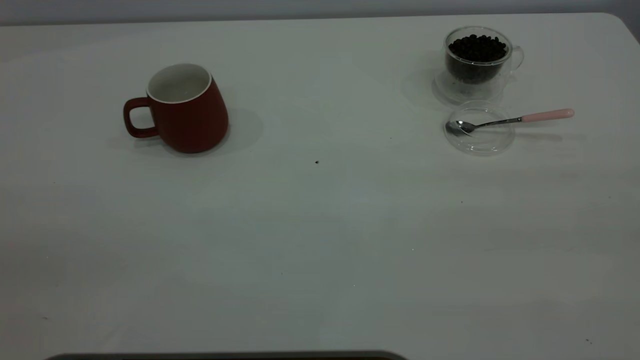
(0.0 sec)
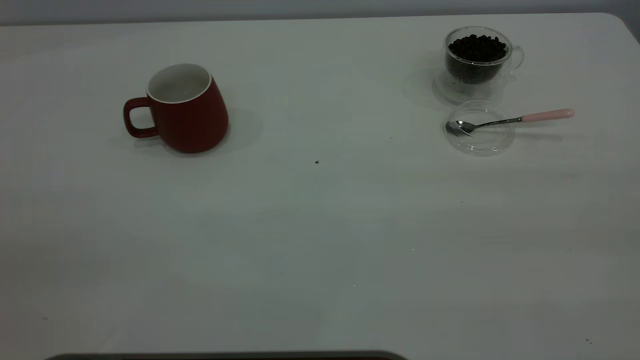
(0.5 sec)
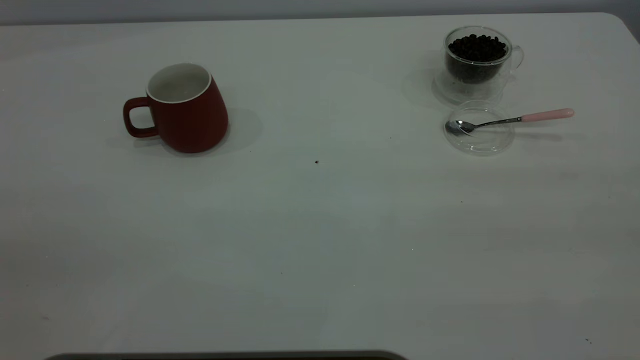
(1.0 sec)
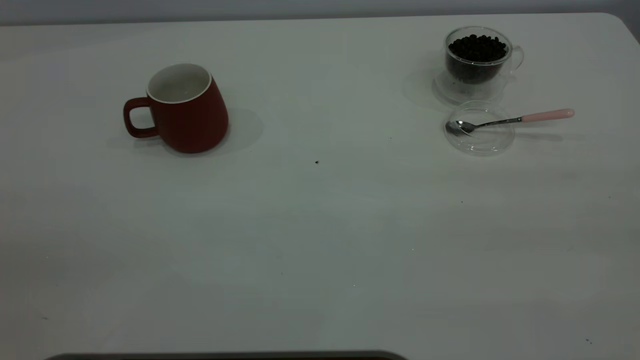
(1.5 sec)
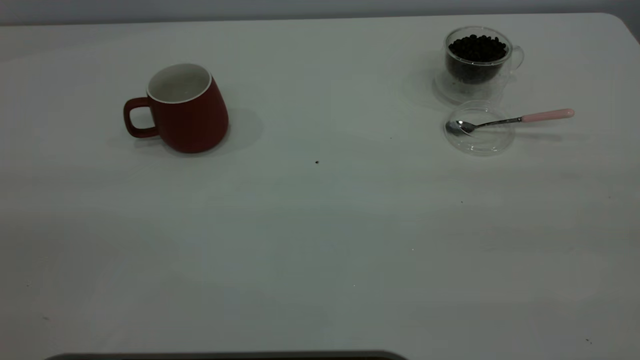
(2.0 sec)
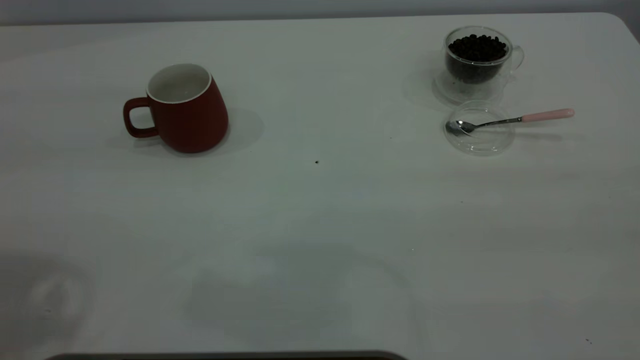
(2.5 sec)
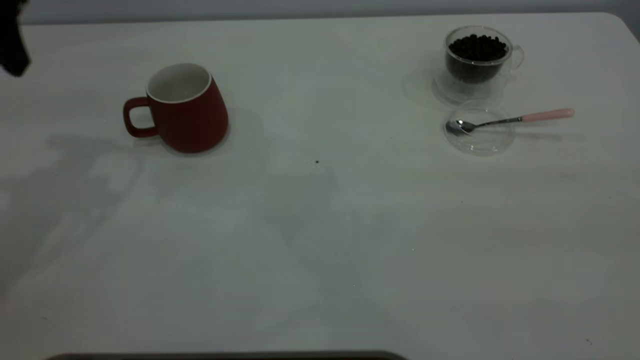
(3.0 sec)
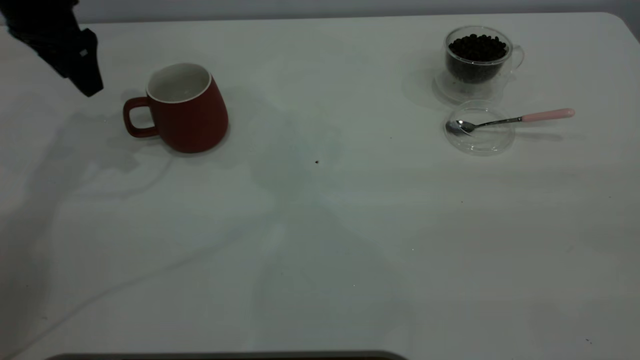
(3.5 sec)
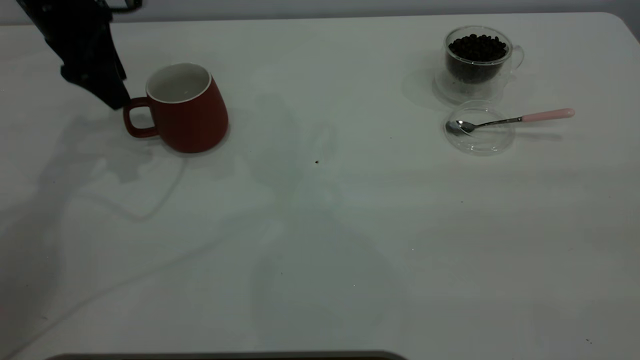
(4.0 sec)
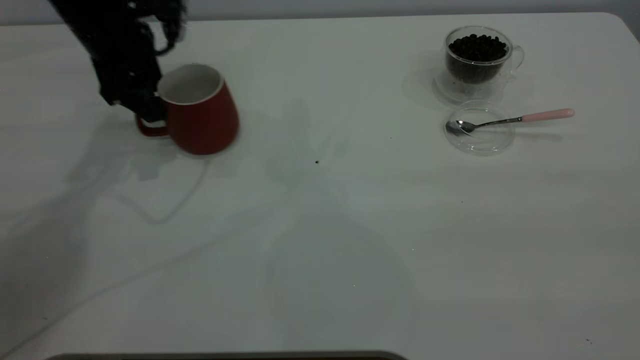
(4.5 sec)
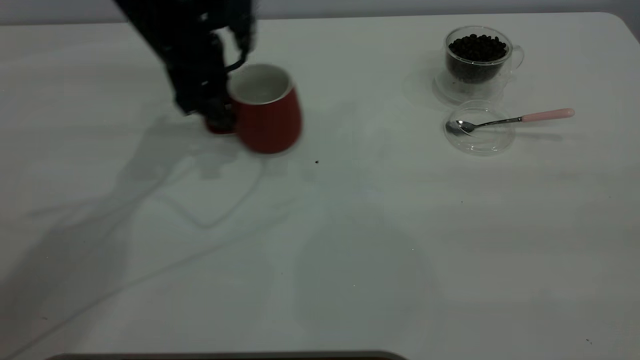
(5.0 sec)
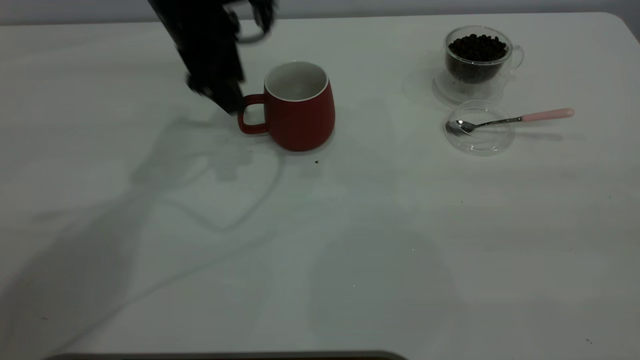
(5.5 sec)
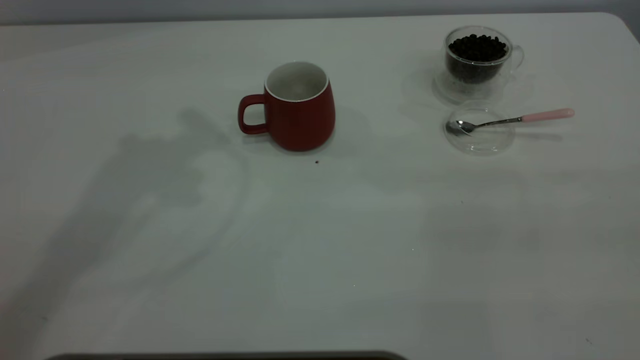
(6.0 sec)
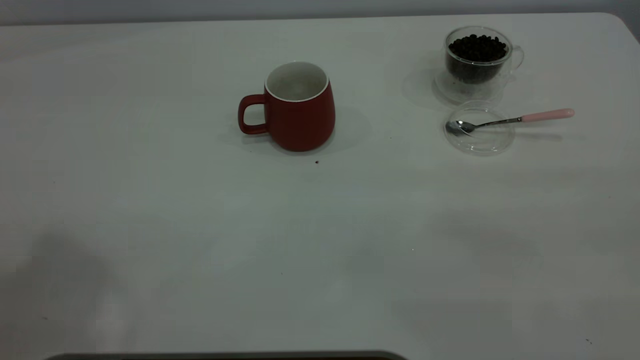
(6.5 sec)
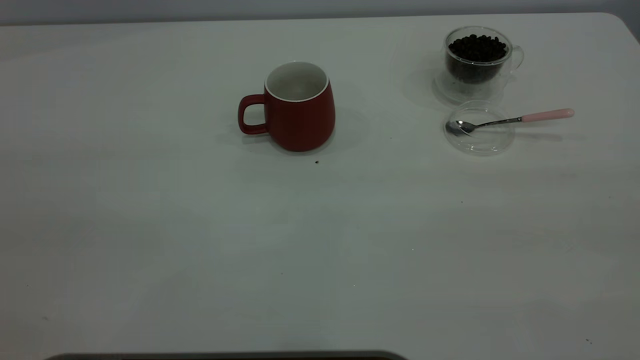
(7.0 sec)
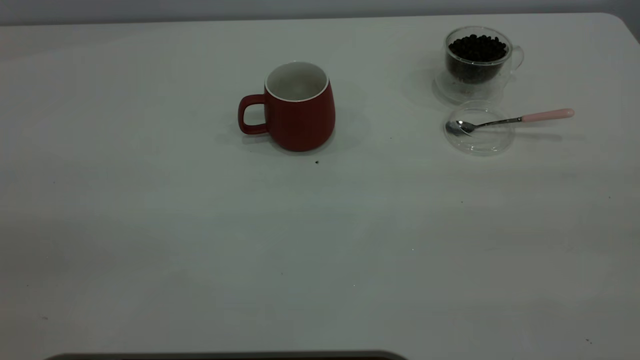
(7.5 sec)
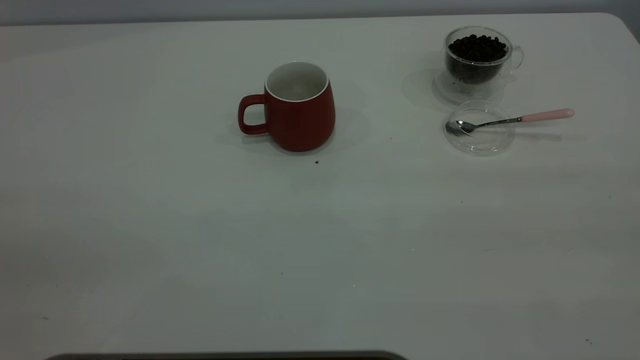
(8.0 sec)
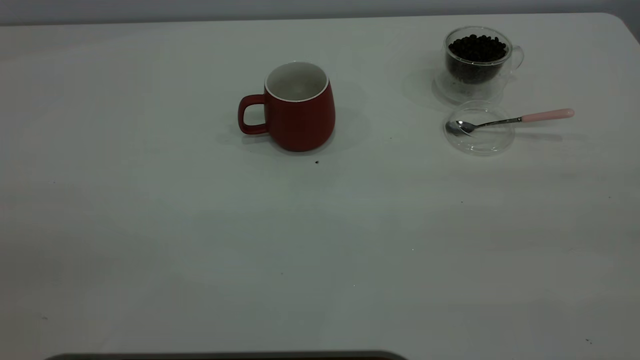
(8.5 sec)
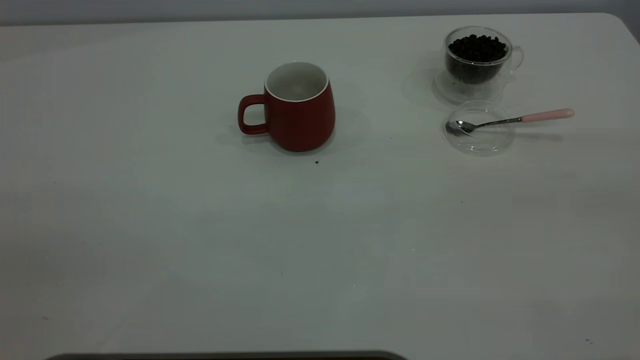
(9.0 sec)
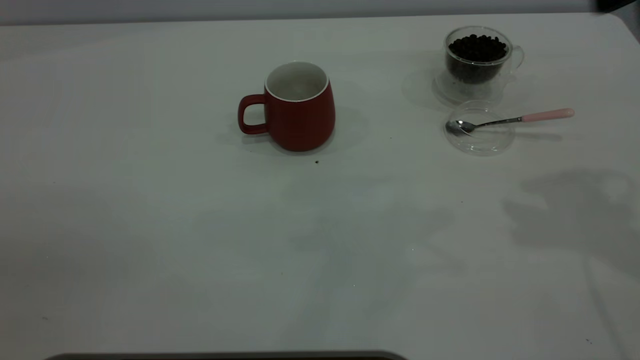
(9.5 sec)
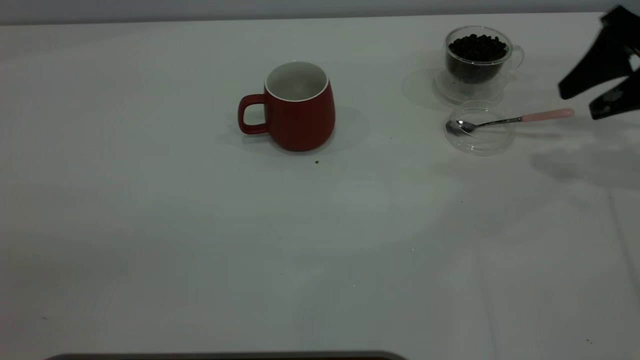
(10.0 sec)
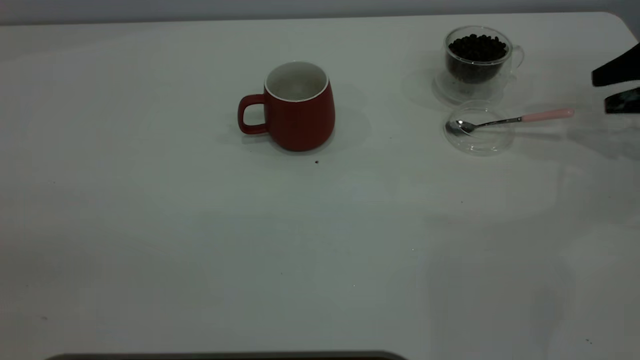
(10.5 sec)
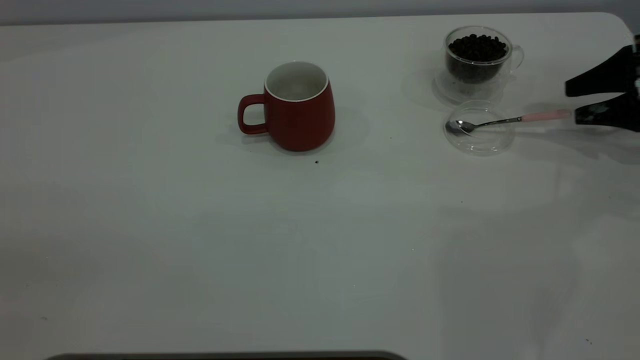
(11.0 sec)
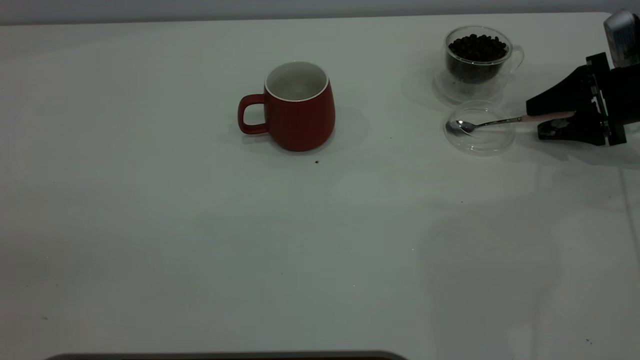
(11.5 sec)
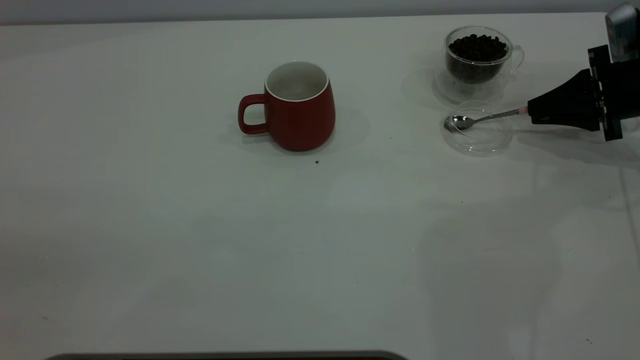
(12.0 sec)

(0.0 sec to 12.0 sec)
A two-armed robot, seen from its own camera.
Task of the whole recording: the left gripper place the red cup in the center of the table, the right gripper take the pink spoon from the cup lid and scoop out the coffee beans from the coffee cup and put them into the red cup, the right gripper put the spoon back into the cup lid.
Step, 0.0 sec - 5.5 sec: Move the cup to the center of view.
2.0 sec - 4.0 sec: The left gripper is displaced forward and downward by approximately 50 cm.
4.0 sec - 6.0 sec: The left gripper shifts some 25 cm upward.
8.0 sec - 10.0 sec: The right gripper is displaced forward and downward by roughly 40 cm.
10.0 sec - 12.0 sec: The right gripper is displaced downward by roughly 10 cm, and closes up.

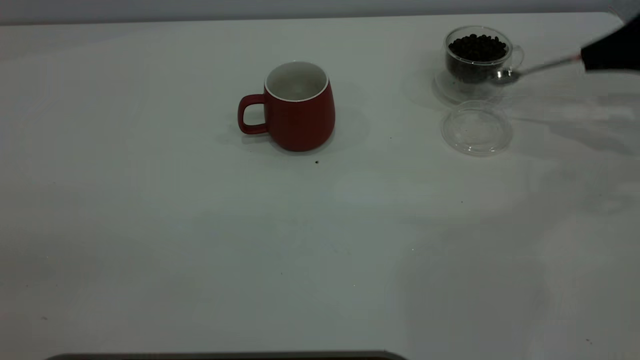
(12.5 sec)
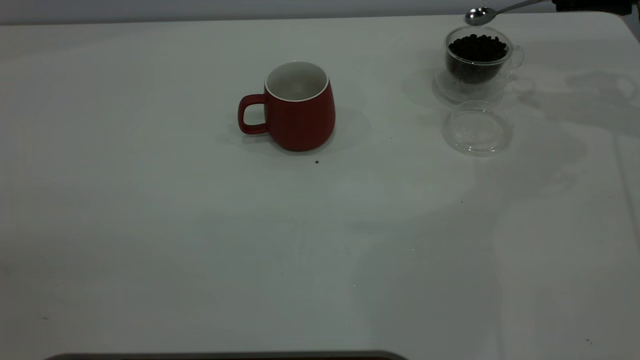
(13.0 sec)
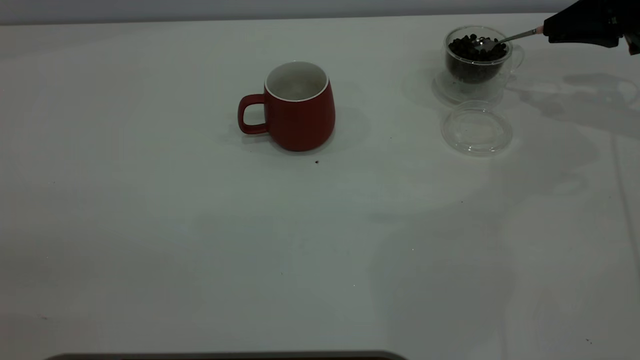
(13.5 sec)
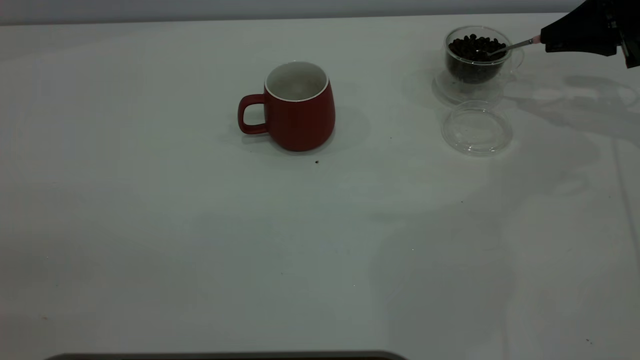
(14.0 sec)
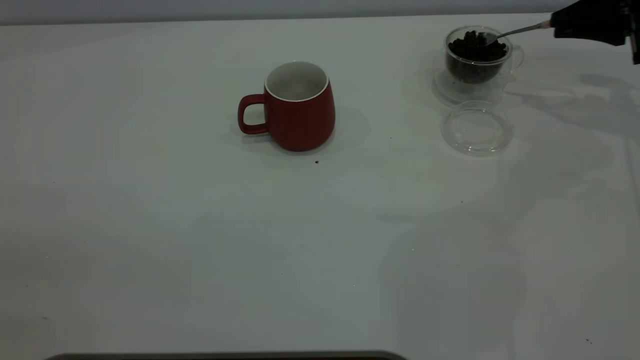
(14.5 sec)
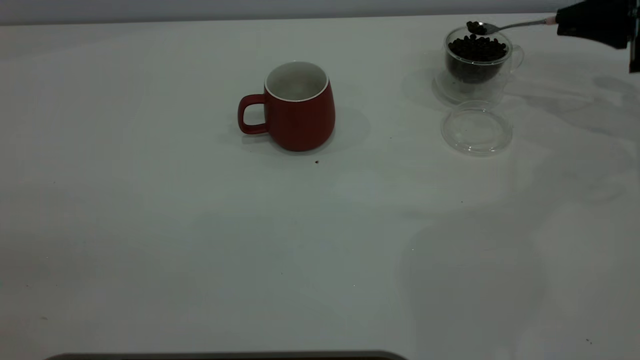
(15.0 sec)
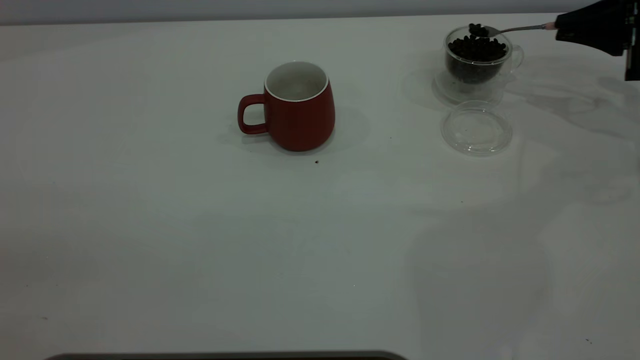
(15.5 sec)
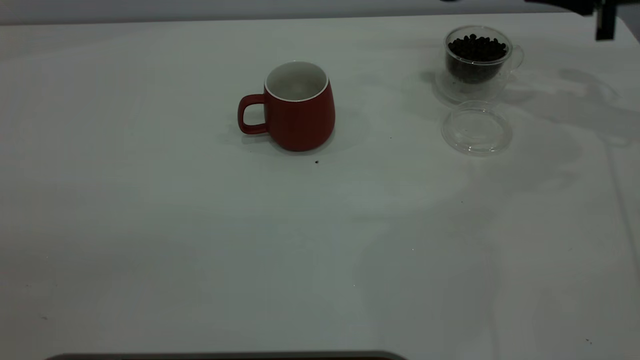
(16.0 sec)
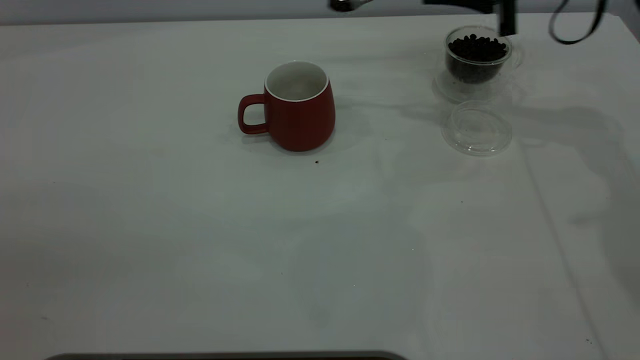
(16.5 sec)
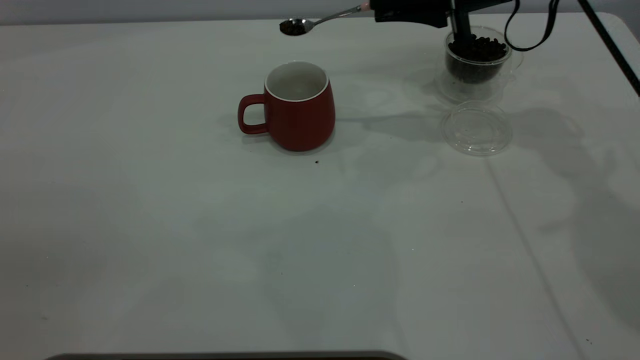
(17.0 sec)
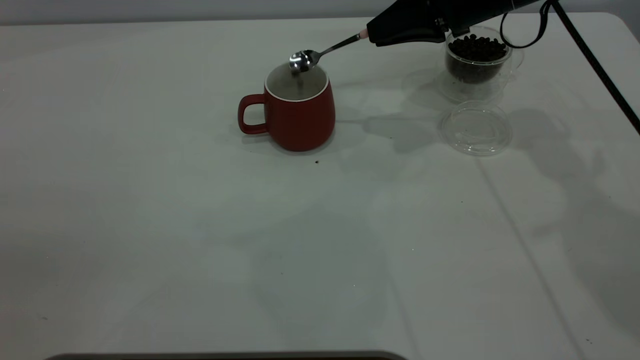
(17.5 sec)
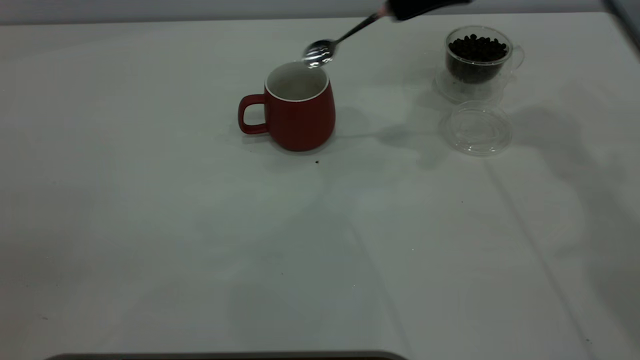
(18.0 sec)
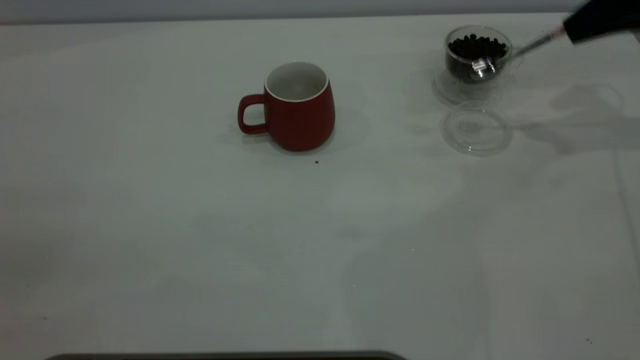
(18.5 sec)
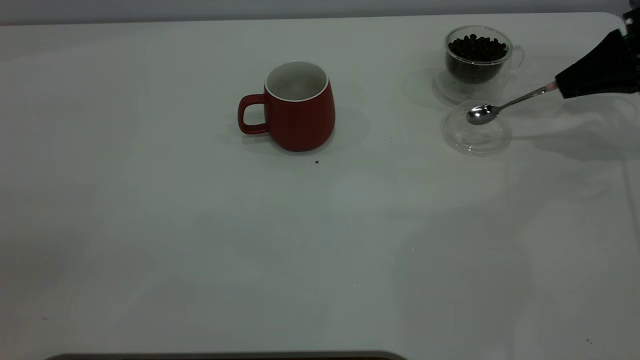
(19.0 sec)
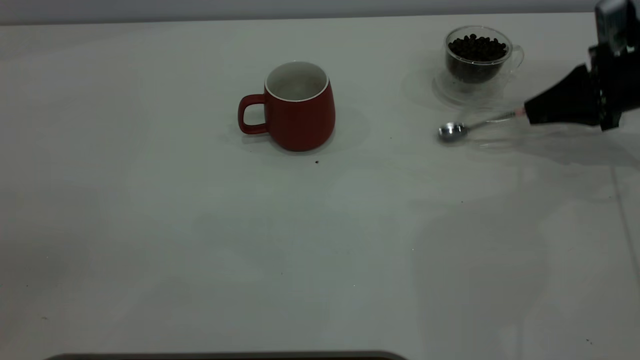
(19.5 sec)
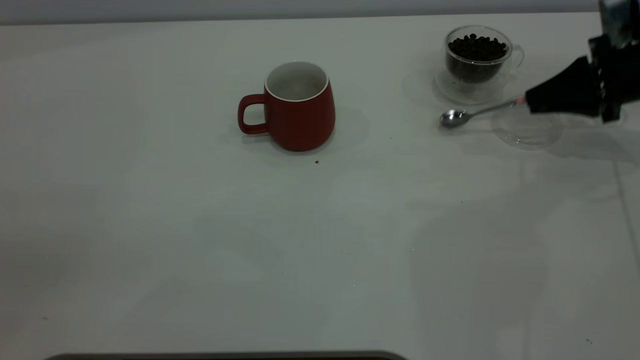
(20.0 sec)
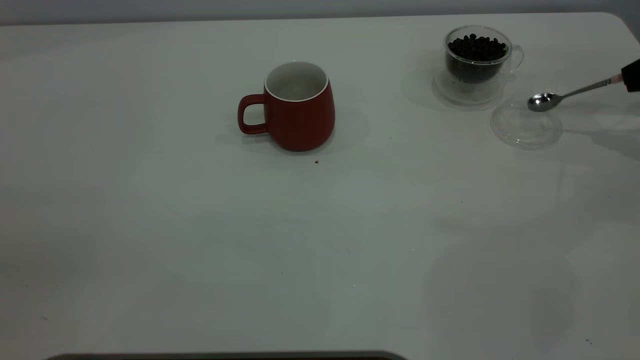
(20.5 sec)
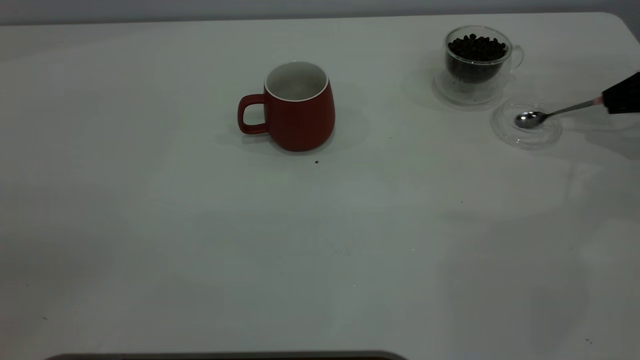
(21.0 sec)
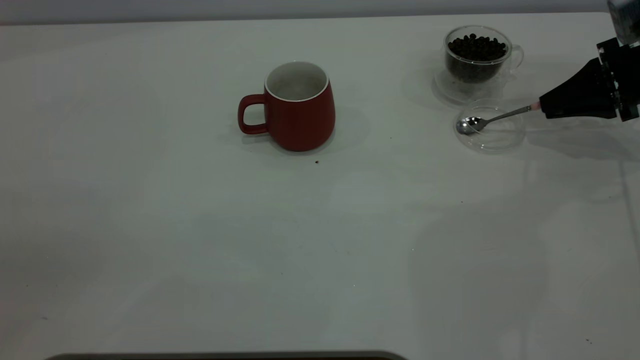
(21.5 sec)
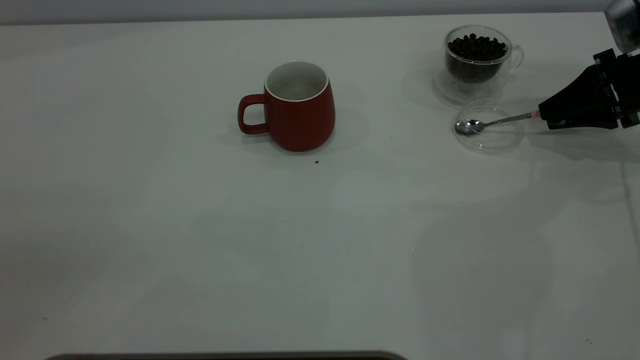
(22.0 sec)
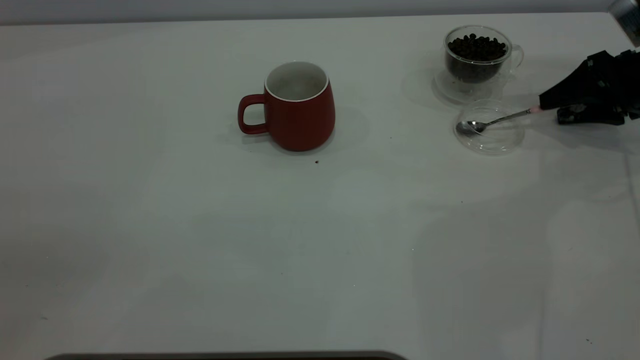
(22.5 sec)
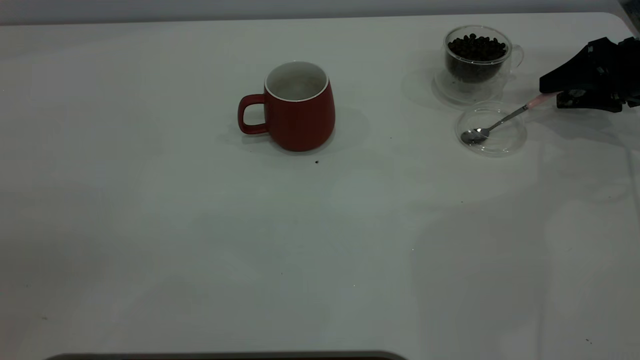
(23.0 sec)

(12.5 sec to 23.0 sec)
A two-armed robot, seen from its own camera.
Task of the whole recording: the left gripper place the red cup in the center of the table, the right gripper take the pink spoon from the cup lid and scoop out the coffee beans from the coffee cup and put them into the red cup, the right gripper put the spoon back into the cup lid.
Step, 12.5 sec - 17.5 sec: Scoop a spoonful of beans into the cup.
12.5 sec - 14.5 sec: The grippers make only small movements.
14.5 sec - 16.5 sec: The right gripper travels to the left by some 15 cm.
16.5 sec - 19.0 sec: The right gripper shifts some 15 cm to the right.
19.0 sec - 21.0 sec: The right gripper goes approximately 5 cm to the right.
21.0 sec - 23.0 sec: The right gripper ends up about 5 cm from where it was, and opens its fingers.
